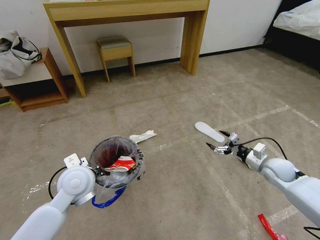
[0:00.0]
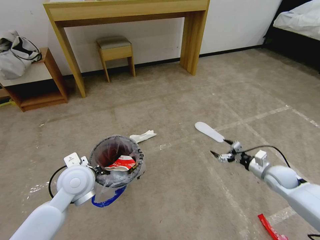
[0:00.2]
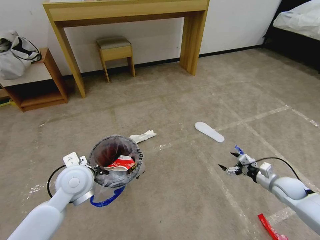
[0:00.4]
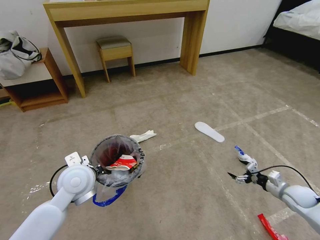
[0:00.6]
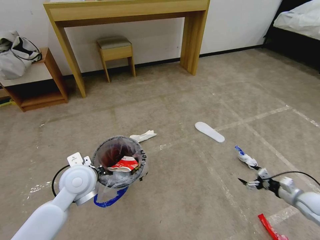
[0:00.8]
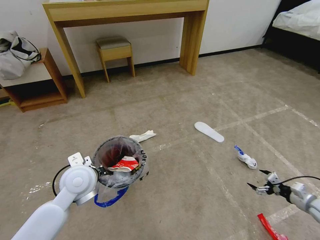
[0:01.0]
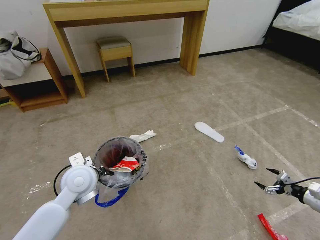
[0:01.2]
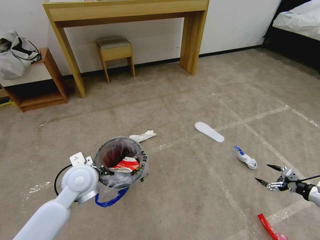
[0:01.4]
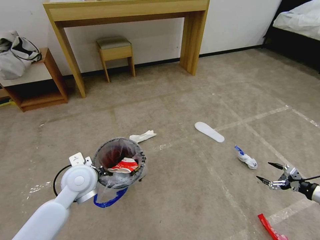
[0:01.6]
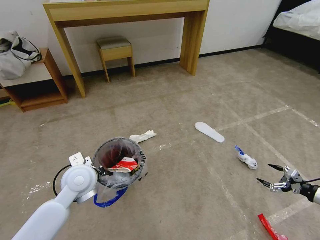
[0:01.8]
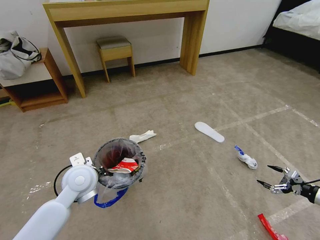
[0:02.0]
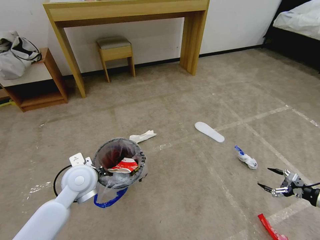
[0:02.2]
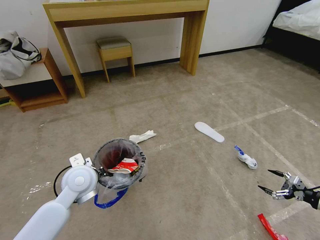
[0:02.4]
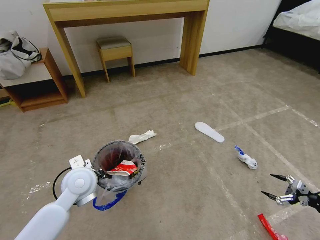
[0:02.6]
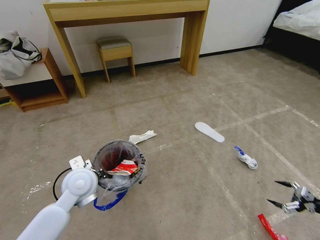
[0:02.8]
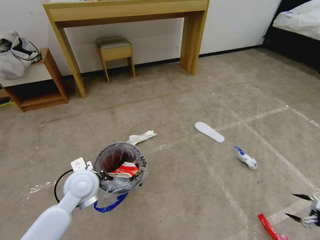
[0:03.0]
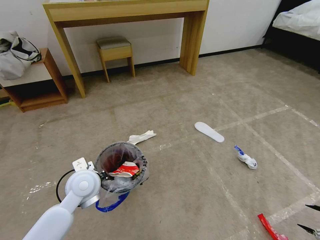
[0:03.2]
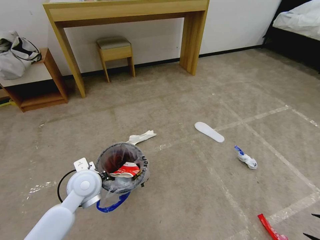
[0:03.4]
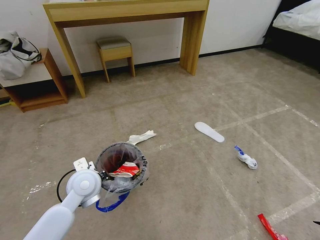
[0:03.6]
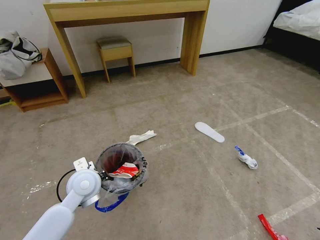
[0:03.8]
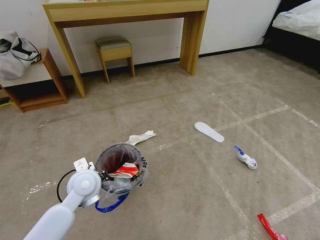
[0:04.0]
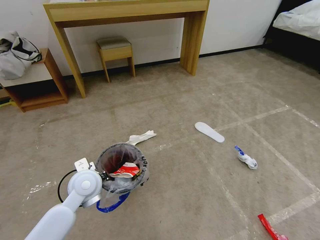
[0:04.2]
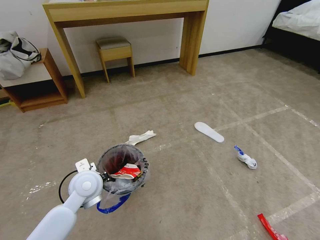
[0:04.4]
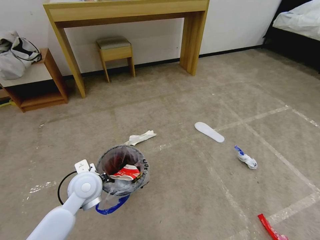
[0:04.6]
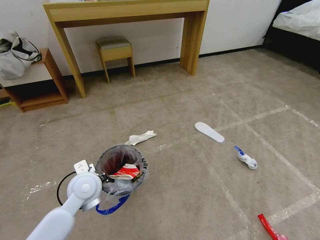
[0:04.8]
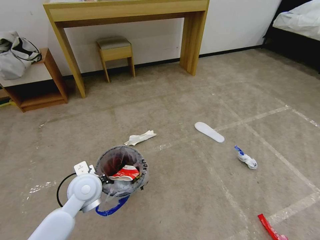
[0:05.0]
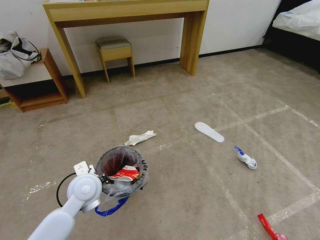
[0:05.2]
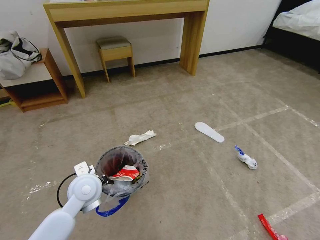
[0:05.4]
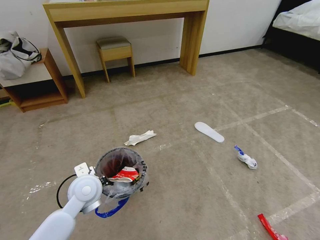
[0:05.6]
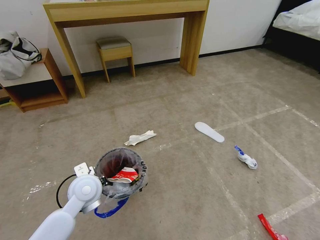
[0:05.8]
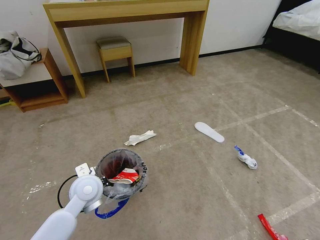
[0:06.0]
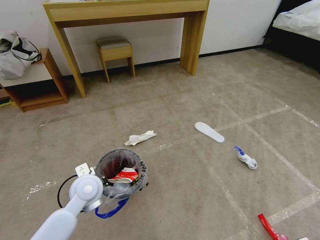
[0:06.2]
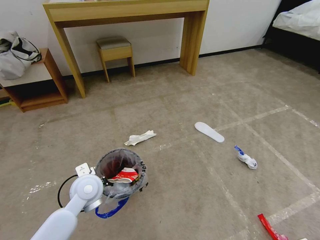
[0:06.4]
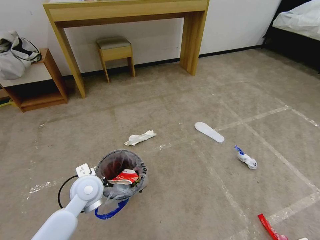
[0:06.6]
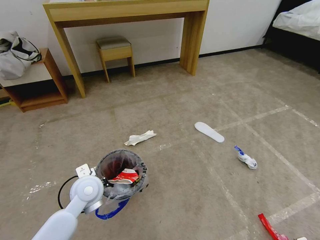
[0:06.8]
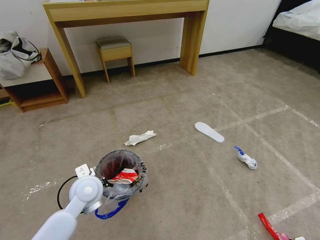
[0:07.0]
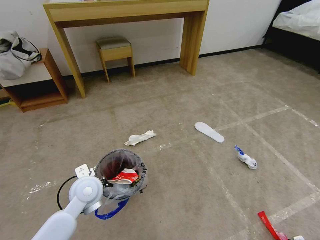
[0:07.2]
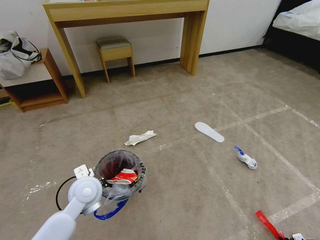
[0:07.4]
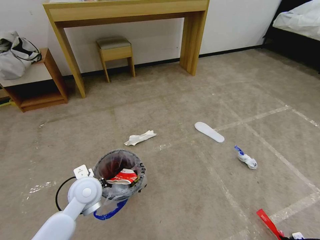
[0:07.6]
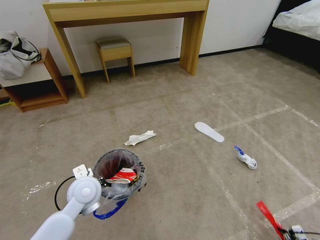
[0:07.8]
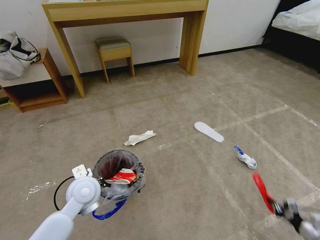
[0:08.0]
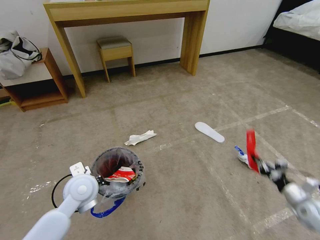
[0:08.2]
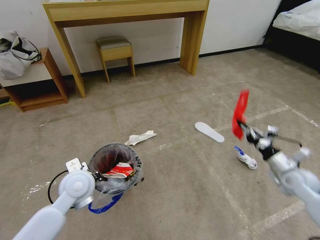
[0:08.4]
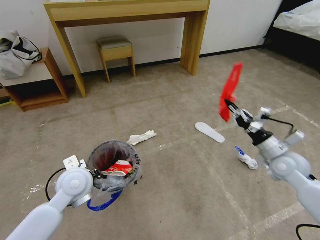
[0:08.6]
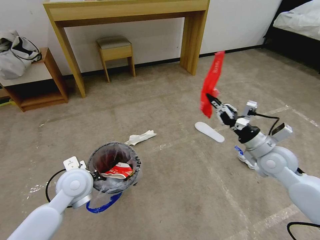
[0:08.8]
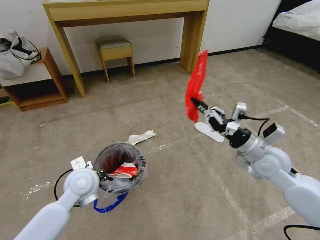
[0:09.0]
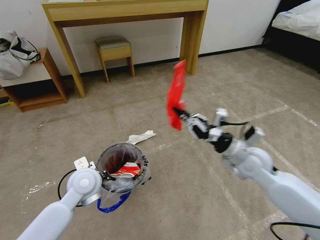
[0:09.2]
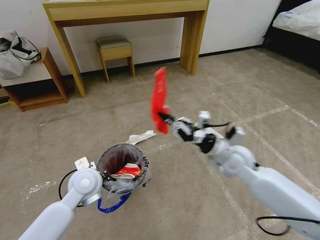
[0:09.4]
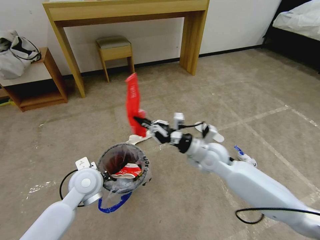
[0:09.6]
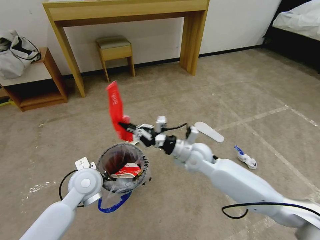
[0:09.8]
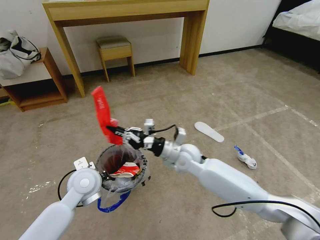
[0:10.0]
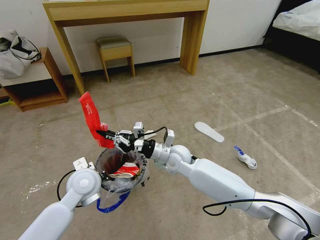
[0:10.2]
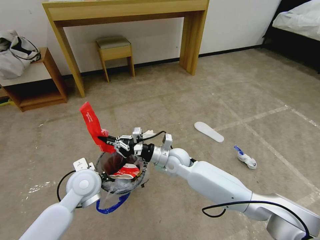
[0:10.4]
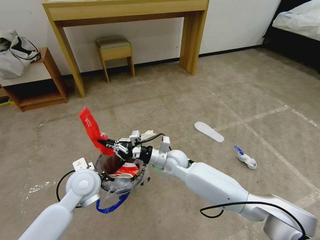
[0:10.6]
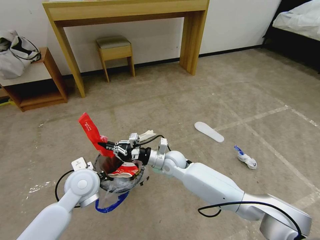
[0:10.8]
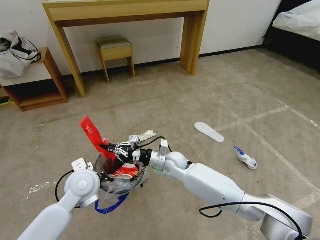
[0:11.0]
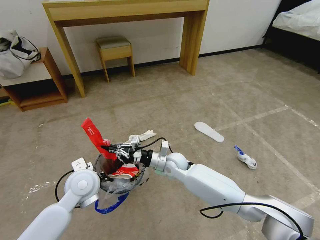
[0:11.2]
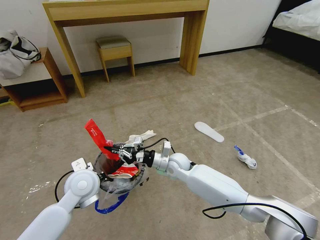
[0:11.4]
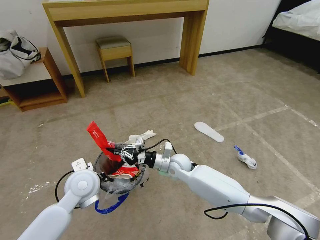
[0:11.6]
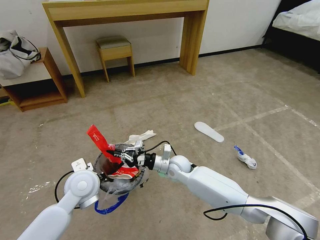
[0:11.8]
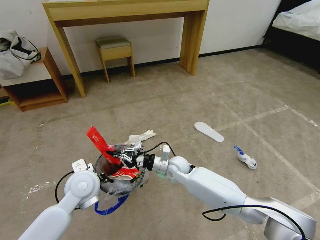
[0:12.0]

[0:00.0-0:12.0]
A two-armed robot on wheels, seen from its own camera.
Task of the whole recording: Pick up the trash bin and place the garbage on the floor into it.
0:00.0 to 0:01.6: The right gripper shifts roughly 25 cm to the right and backward.
0:01.6 to 0:03.0: The right gripper shifts about 10 cm backward and to the right.
0:03.0 to 0:04.4: The right gripper moves backward and downward, about 20 cm.
0:04.4 to 0:06.0: The right gripper heads downward, forward and to the left, covering about 10 cm.
0:06.0 to 0:07.6: The right gripper closes up.
0:07.6 to 0:09.0: The right gripper heads upward, to the left and forward, covering approximately 50 cm.
0:09.0 to 0:10.4: The right gripper moves to the left, roughly 25 cm.
0:10.4 to 0:12.0: The right gripper is displaced downward by about 5 cm.

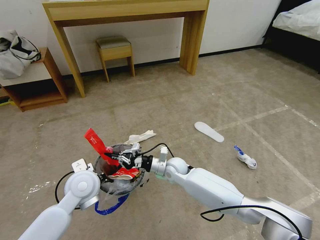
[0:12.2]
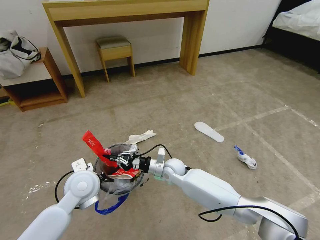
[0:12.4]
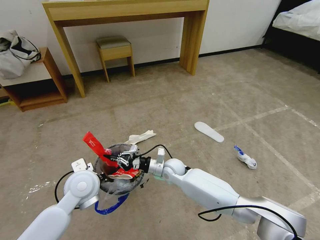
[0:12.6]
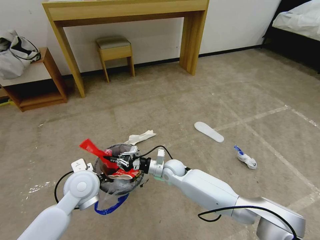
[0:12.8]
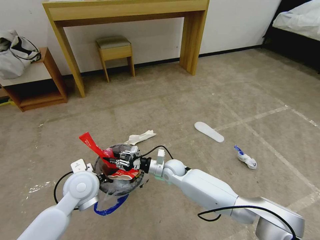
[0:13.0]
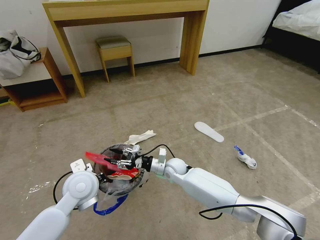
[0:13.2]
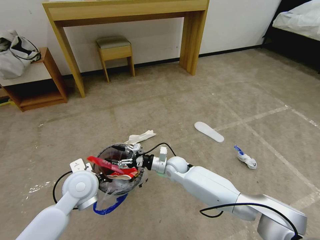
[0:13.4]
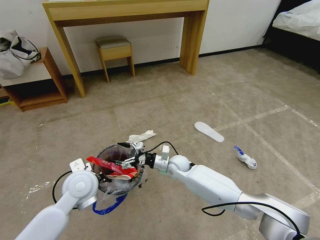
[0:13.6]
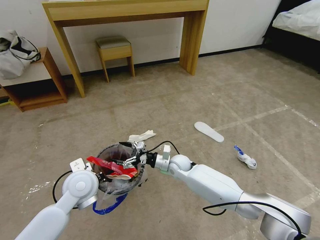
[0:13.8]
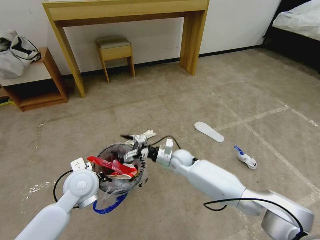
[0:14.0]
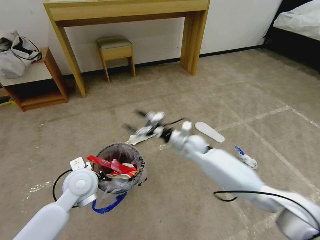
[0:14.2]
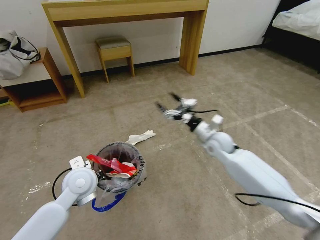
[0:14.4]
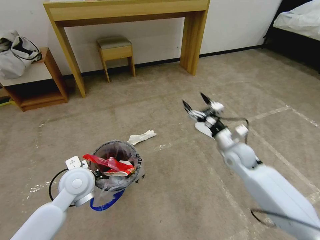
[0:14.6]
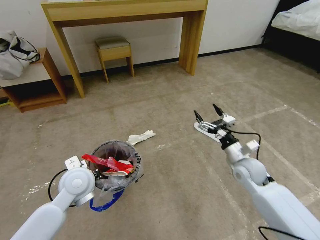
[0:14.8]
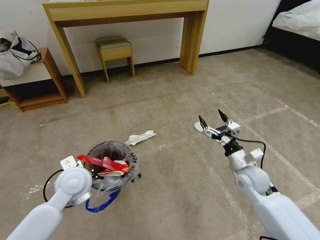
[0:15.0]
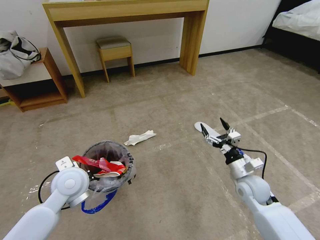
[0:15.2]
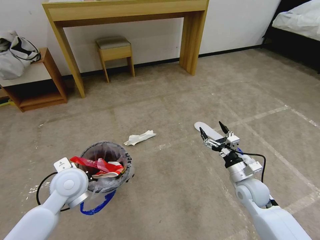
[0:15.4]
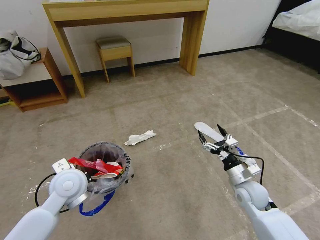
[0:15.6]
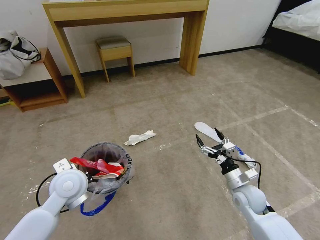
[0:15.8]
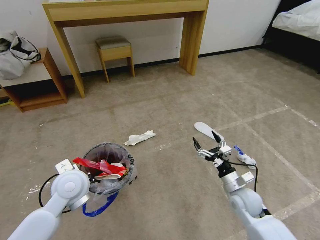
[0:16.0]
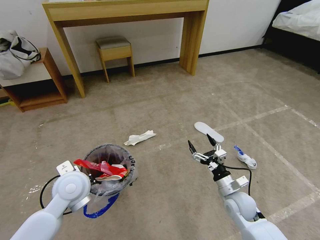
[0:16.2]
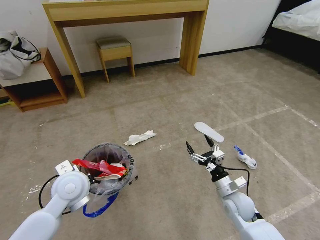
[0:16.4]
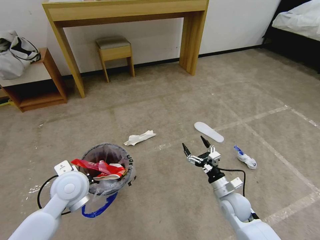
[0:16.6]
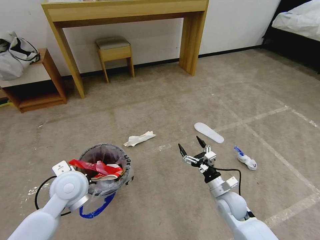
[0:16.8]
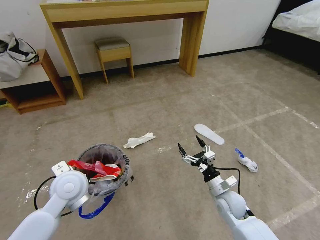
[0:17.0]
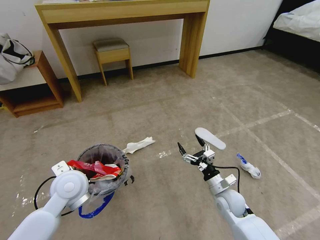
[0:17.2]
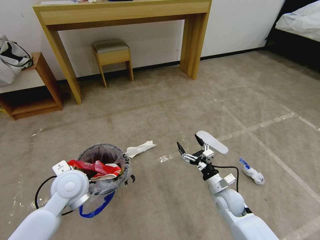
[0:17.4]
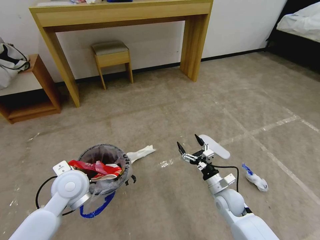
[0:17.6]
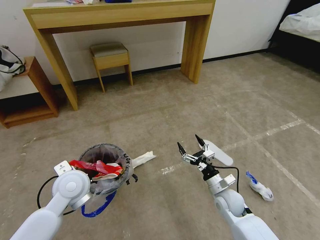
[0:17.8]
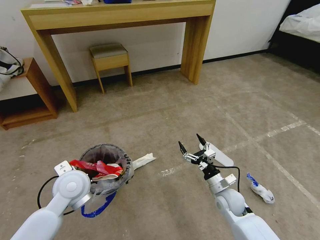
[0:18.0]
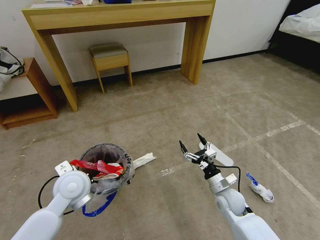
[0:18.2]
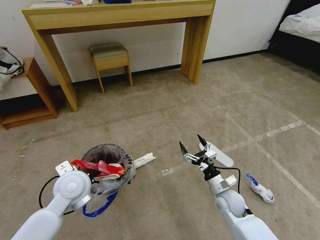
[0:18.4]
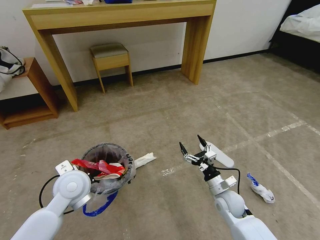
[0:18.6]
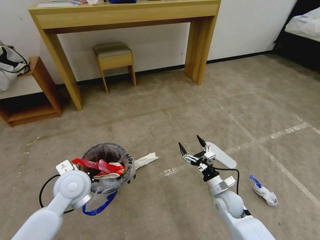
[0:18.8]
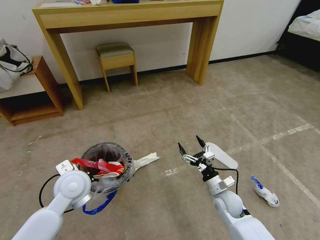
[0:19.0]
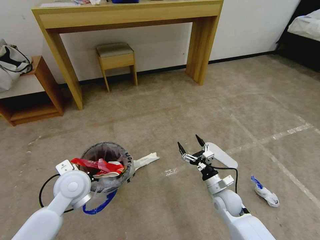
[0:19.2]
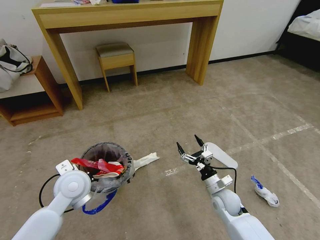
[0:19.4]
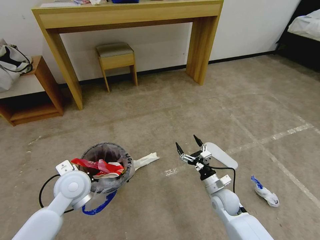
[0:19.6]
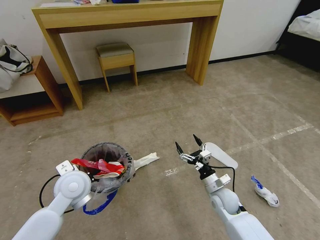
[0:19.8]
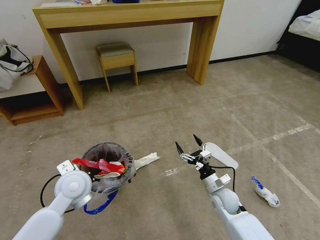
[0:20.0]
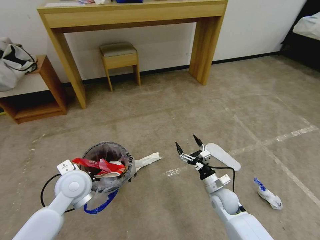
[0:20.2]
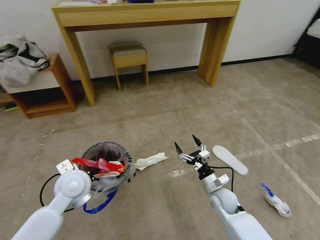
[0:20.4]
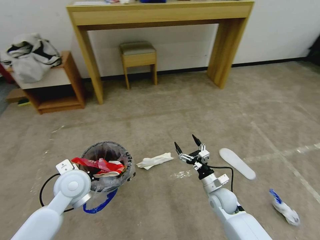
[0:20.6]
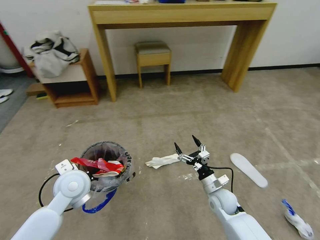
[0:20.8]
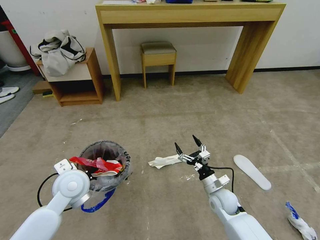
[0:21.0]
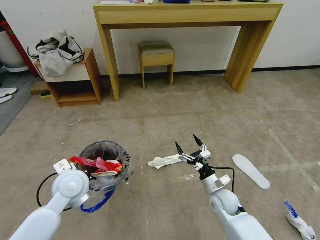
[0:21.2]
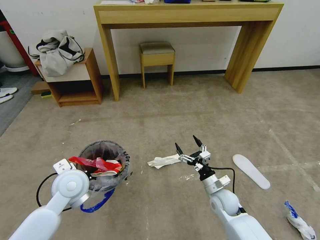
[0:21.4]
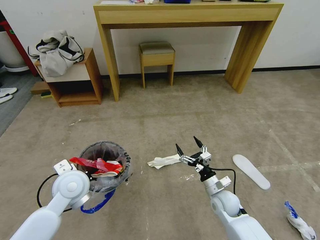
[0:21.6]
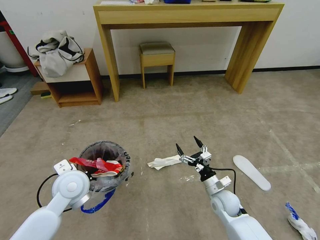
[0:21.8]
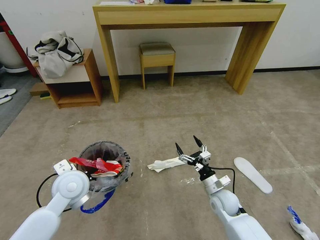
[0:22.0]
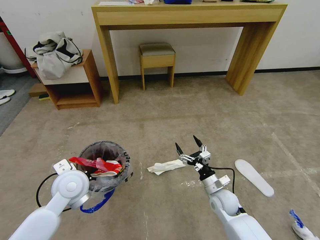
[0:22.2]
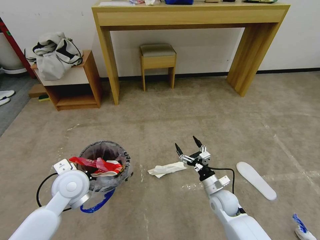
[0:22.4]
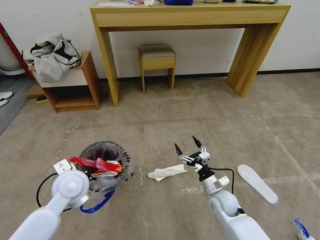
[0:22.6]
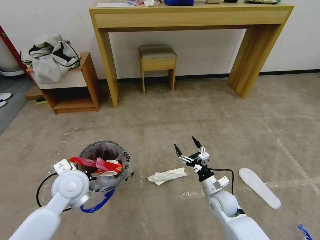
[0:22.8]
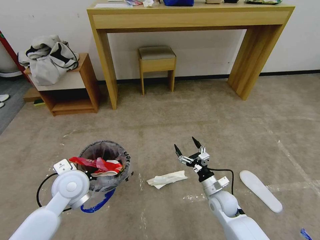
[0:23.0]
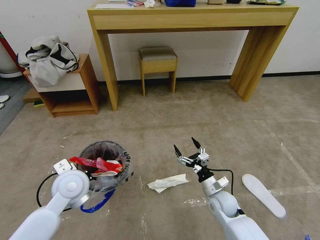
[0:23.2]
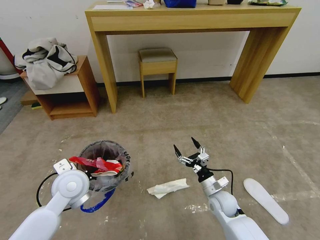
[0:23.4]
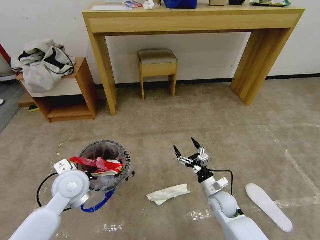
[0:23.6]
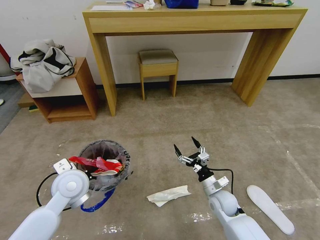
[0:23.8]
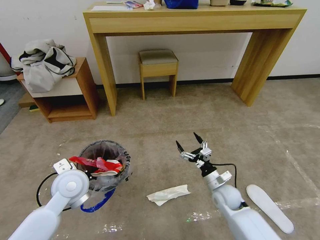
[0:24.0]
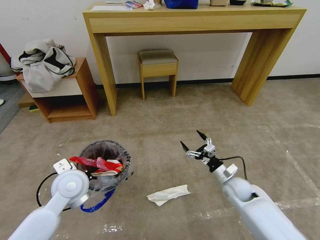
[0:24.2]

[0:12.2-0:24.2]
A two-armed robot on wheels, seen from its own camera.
Task of the whole recording: Pick up the trash bin and place the garbage on the floor into it.
0:12.2 to 0:13.8: The right gripper opens its fingers.
0:13.8 to 0:15.2: The right gripper moves to the right and backward, about 25 cm.
0:15.2 to 0:16.6: The right gripper goes approximately 10 cm downward and to the left.
0:18.2 to 0:19.8: The grippers move only a little.
0:21.2 to 0:22.6: The two grippers keep their place.
0:22.6 to 0:24.2: The right gripper travels to the right by roughly 5 cm.
